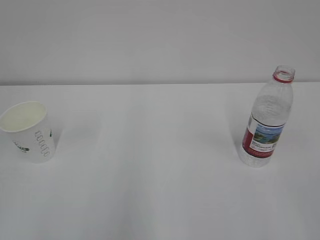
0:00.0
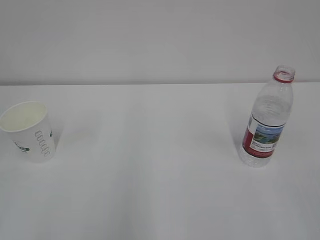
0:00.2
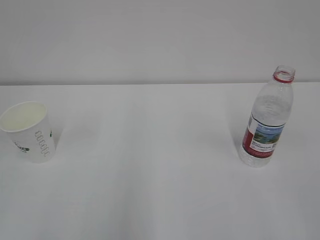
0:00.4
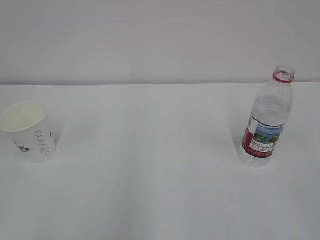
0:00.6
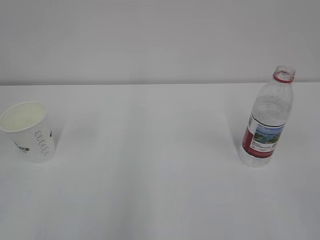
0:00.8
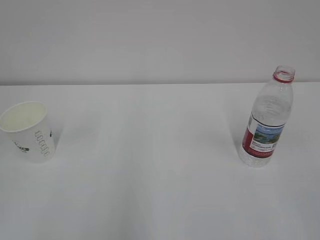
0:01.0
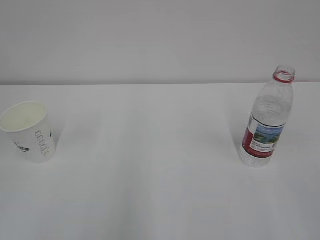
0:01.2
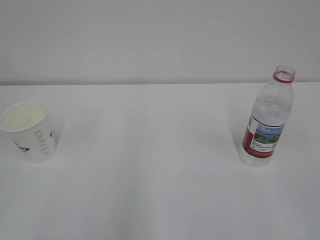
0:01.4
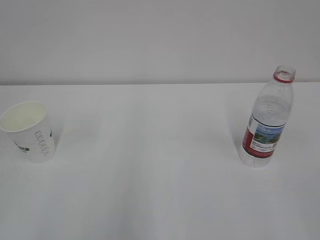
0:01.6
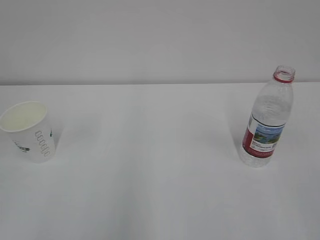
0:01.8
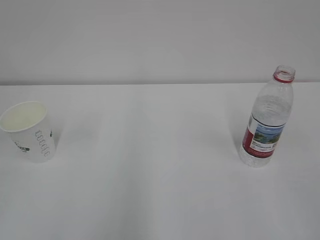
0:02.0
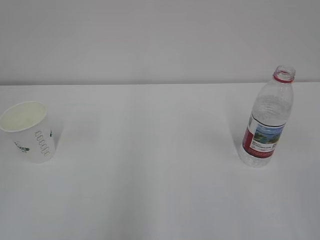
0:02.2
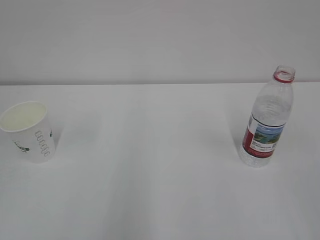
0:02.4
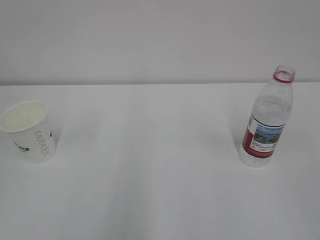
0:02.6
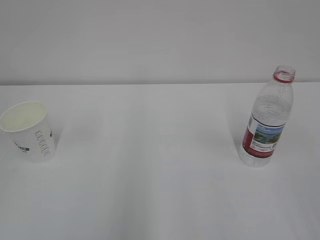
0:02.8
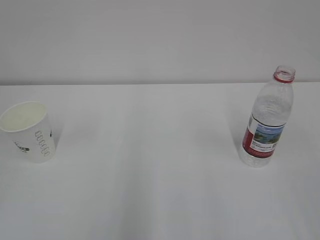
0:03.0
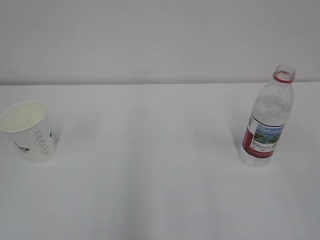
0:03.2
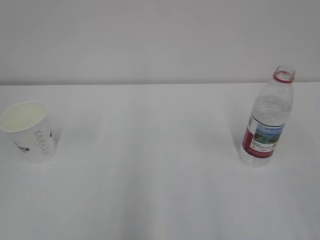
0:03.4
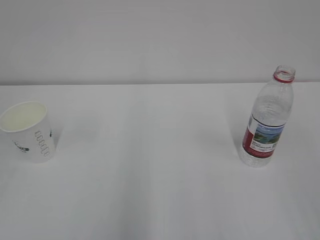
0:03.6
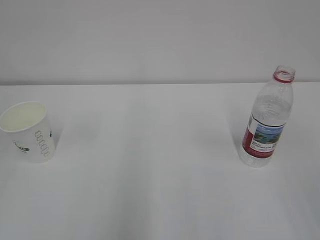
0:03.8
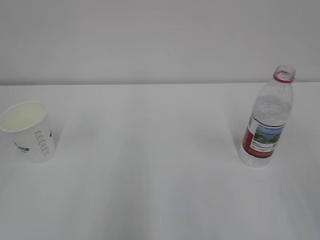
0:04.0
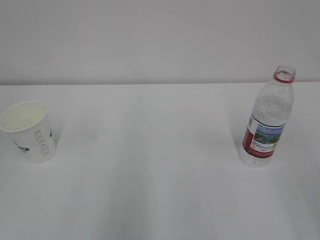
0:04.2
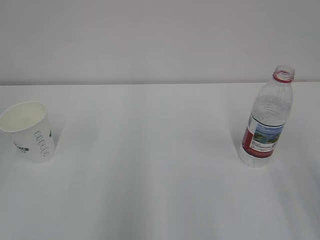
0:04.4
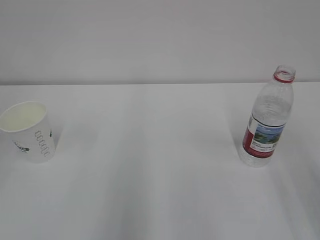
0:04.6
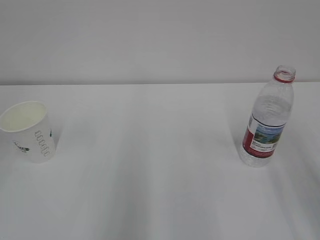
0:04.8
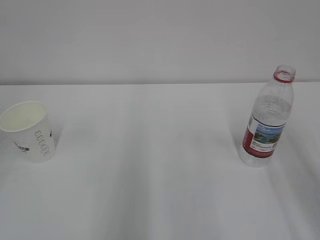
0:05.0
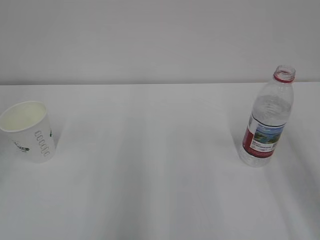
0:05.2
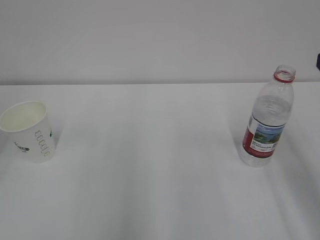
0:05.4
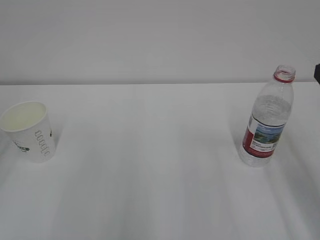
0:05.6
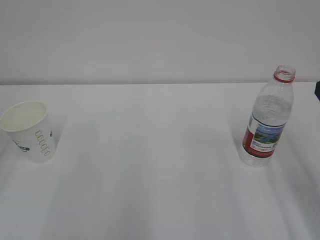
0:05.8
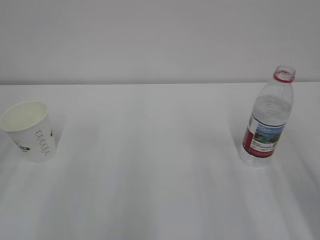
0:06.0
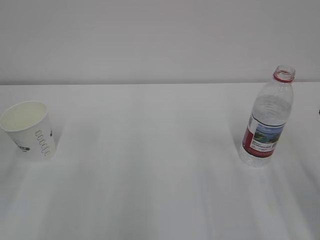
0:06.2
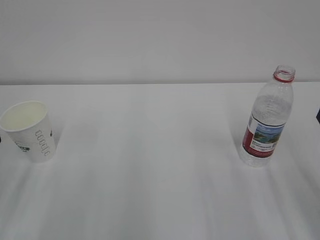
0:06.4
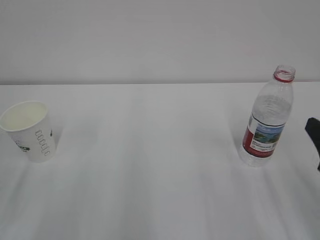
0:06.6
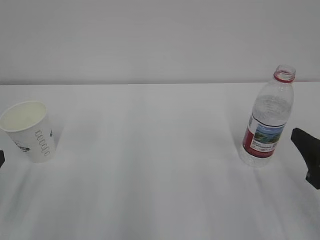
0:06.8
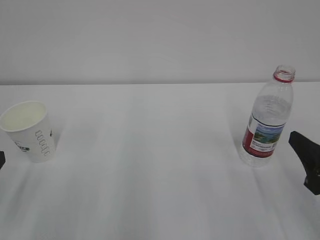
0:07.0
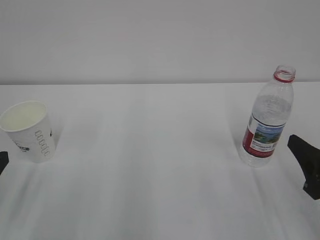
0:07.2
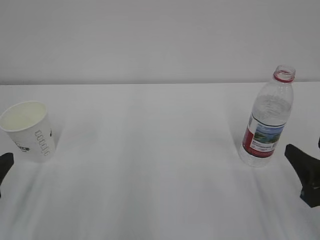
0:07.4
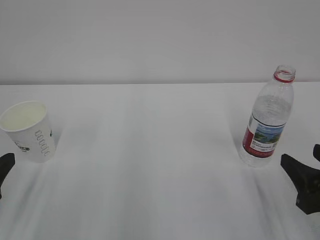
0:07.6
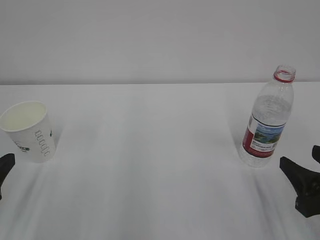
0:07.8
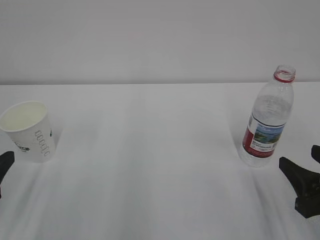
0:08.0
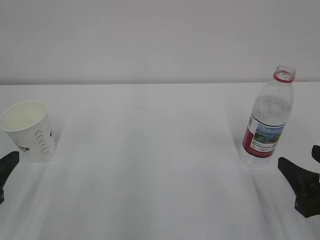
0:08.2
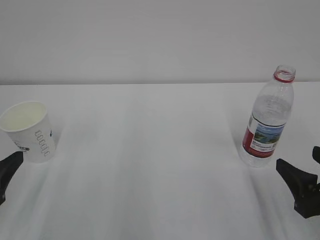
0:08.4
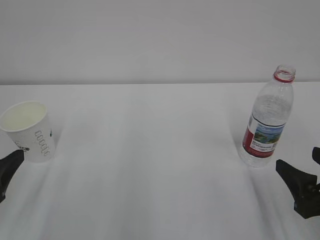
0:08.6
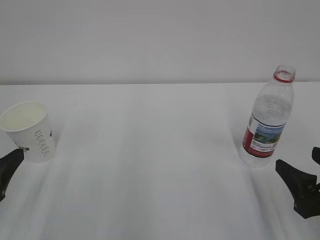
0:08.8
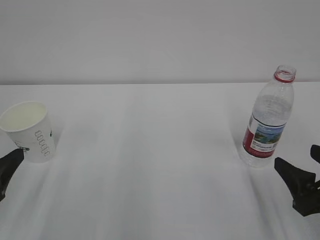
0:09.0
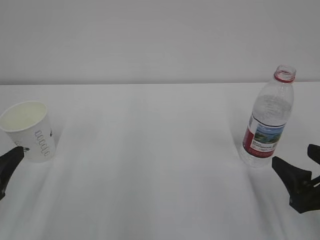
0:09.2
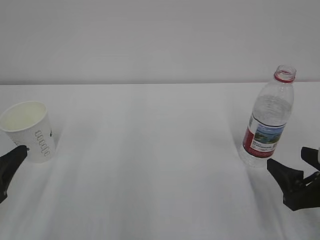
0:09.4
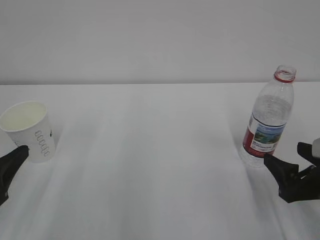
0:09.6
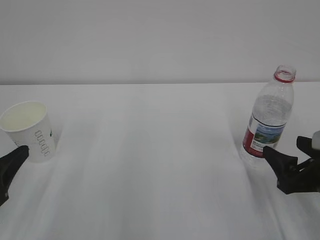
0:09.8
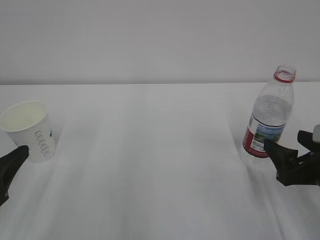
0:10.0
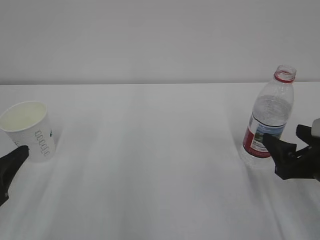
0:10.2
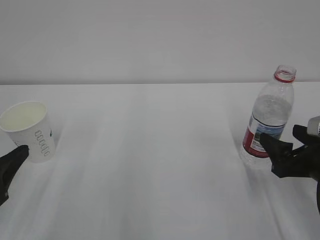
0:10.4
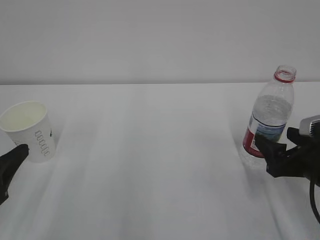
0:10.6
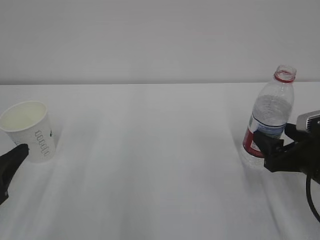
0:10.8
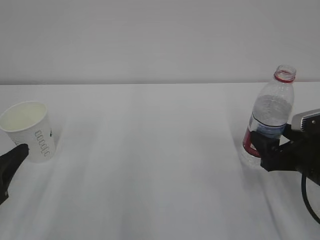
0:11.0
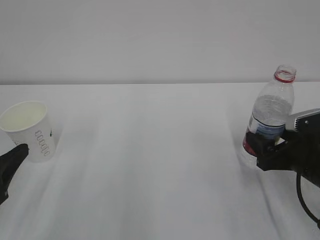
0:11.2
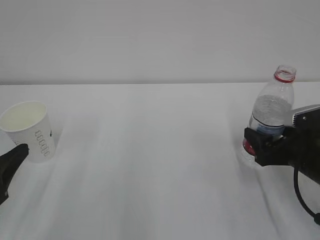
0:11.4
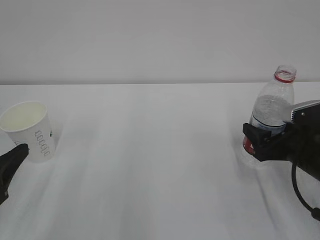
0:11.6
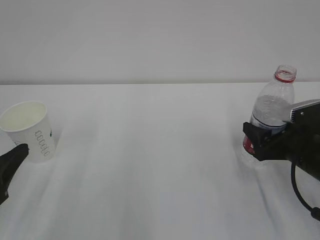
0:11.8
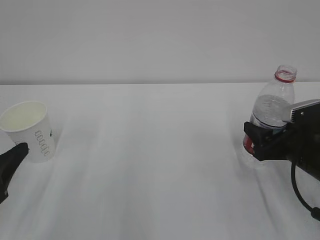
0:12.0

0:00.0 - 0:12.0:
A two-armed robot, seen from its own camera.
0:06.0 - 0:07.6: The grippers both shift downward by about 5 cm.
0:07.6 - 0:09.0: The right gripper opens up.
0:09.0 - 0:10.4: The right gripper moves forward, some 5 cm.
0:10.4 - 0:12.0: The right gripper changes place by roughly 5 cm, and closes up.

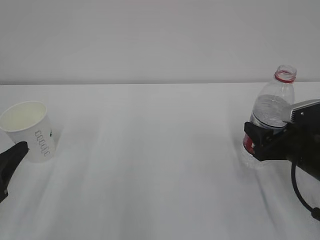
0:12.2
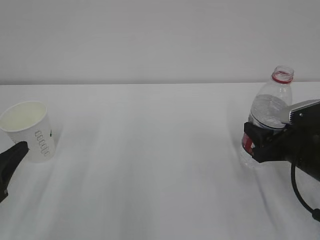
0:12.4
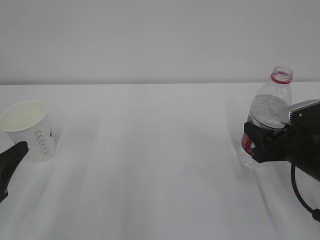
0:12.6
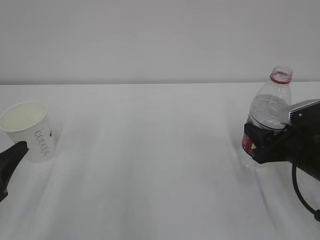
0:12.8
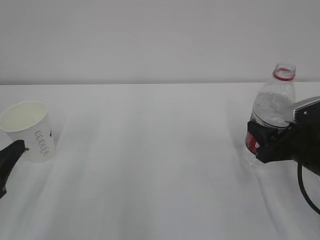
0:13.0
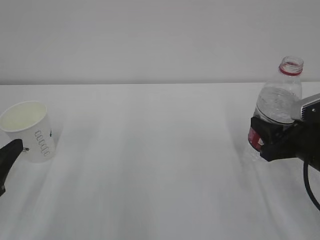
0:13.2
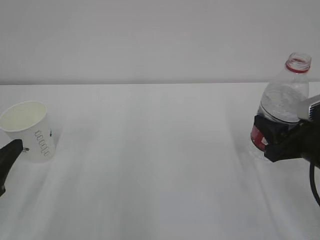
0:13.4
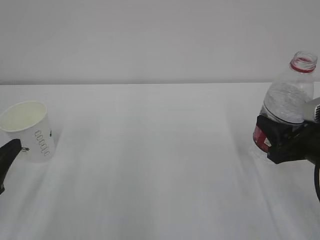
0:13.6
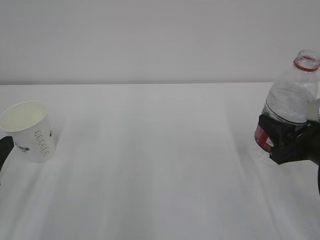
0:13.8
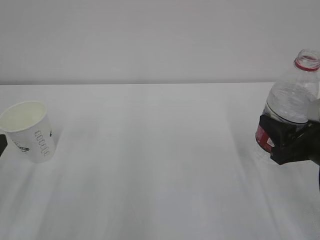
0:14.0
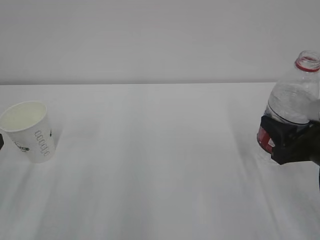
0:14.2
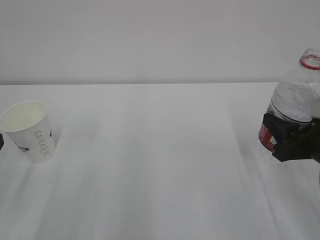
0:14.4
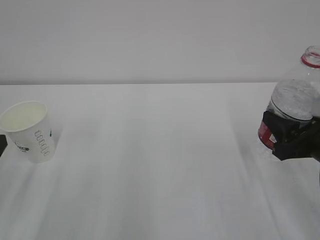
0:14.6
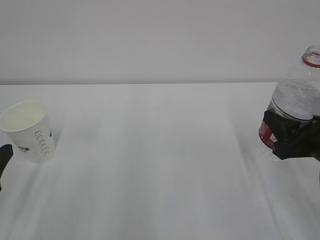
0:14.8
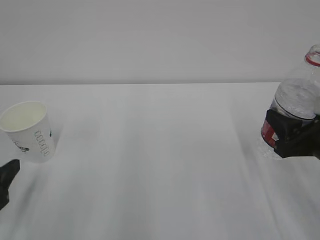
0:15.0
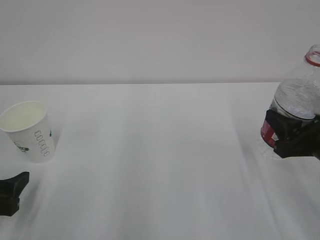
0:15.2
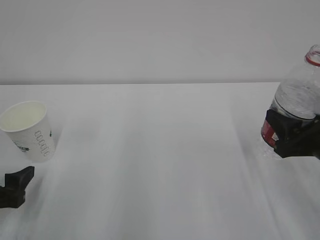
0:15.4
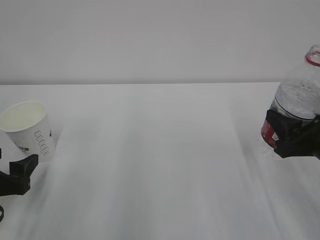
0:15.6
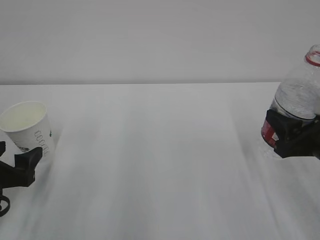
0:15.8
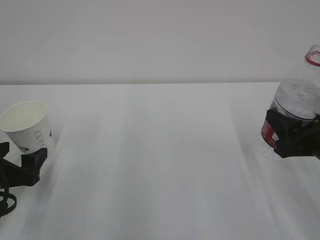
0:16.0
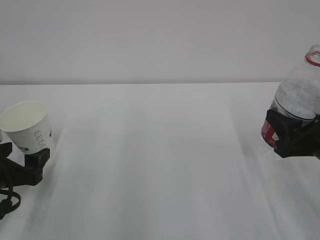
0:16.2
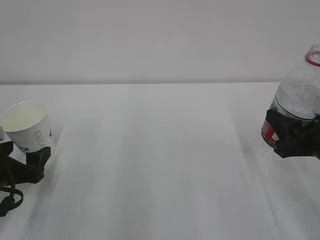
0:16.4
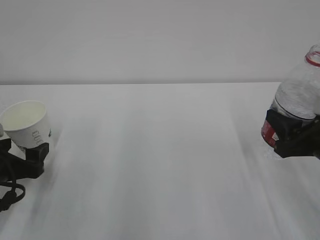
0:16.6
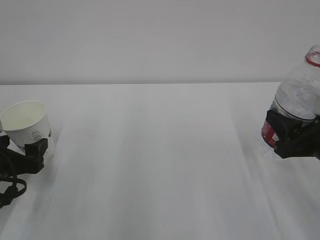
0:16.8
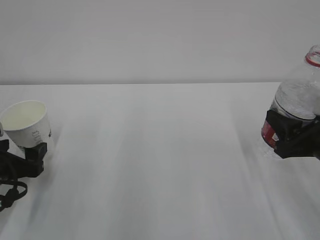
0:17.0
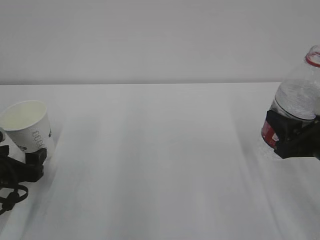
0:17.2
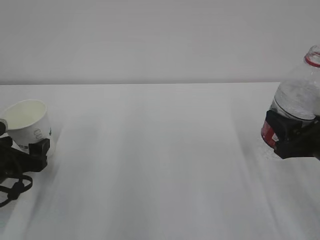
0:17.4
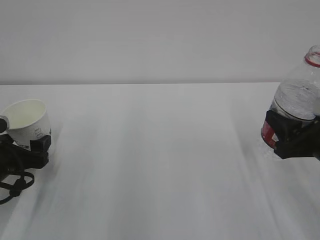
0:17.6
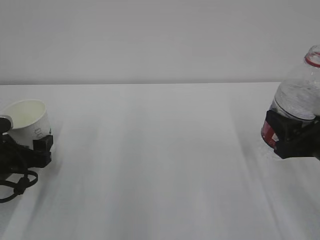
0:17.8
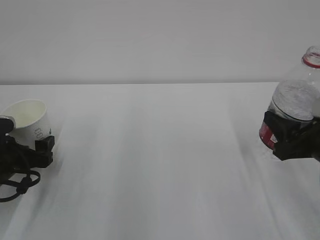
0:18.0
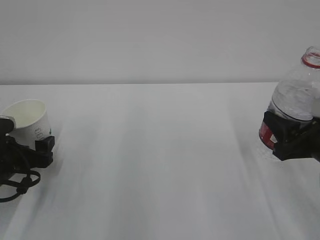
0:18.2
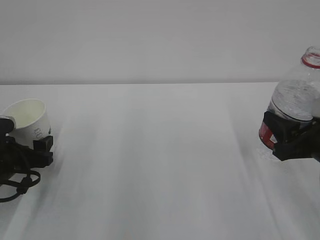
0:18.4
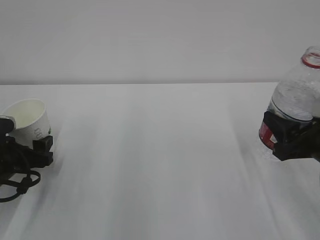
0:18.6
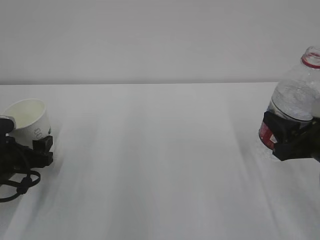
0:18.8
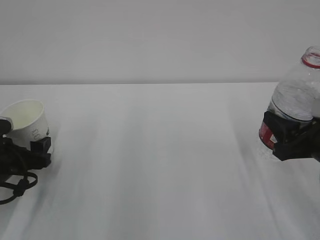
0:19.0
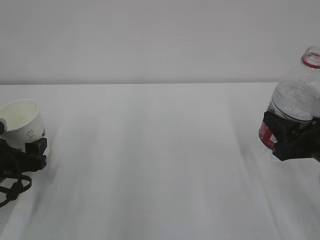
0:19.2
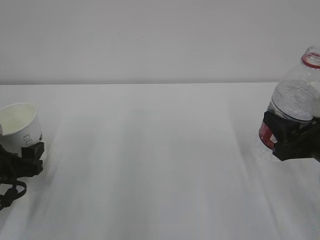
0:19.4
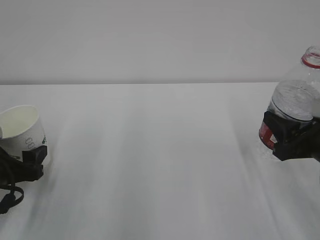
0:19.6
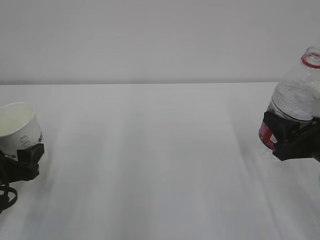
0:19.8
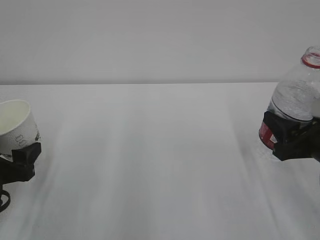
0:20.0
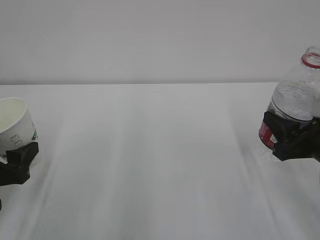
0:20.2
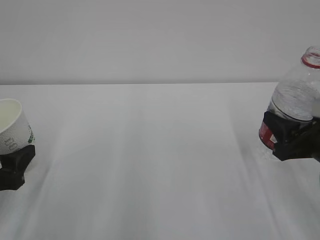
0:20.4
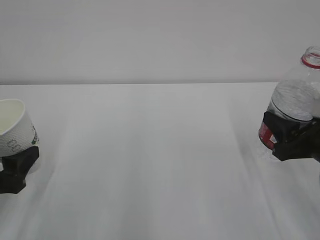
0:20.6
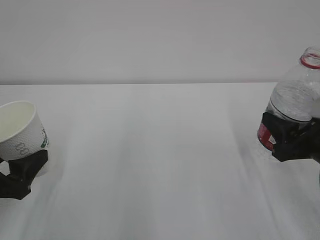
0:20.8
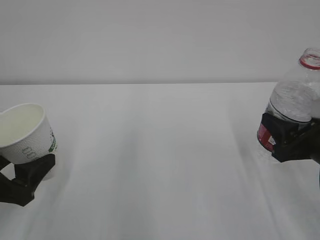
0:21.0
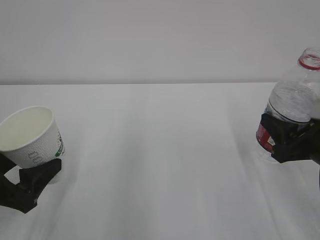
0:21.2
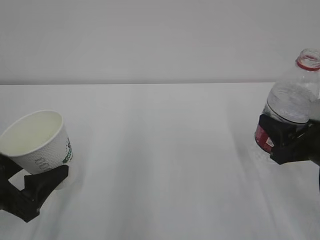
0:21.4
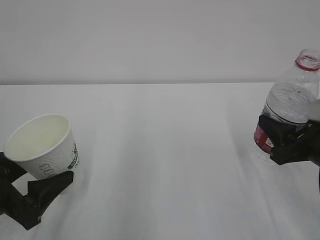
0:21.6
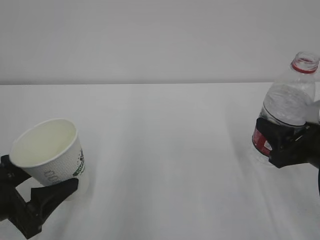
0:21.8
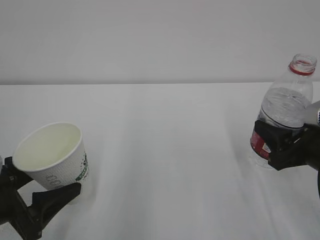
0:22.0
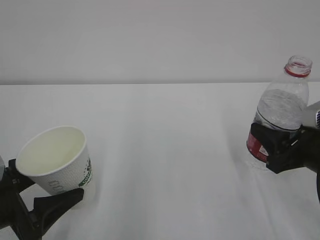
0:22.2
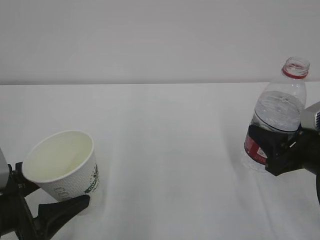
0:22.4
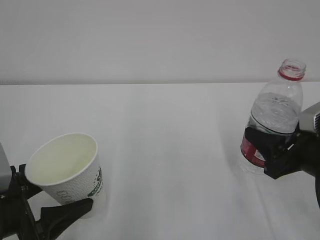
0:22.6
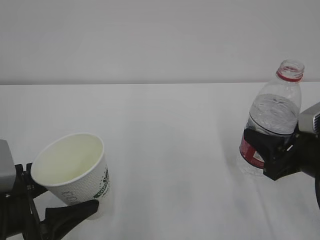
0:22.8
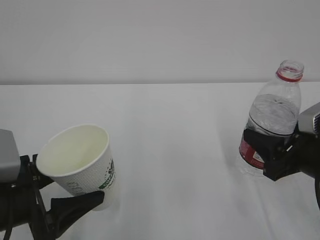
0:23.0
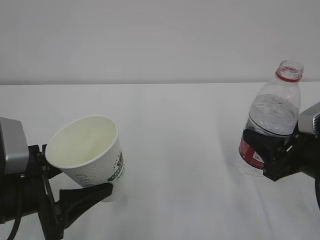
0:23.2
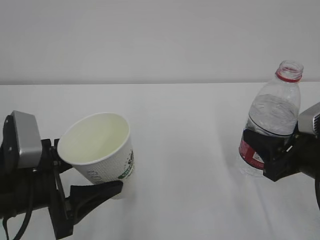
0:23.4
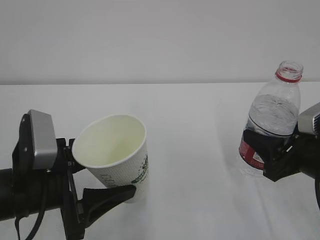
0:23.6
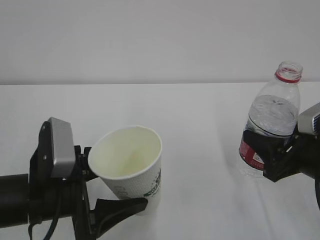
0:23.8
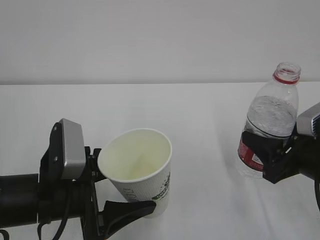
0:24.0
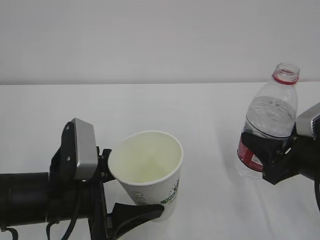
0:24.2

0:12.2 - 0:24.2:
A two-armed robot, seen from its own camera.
0:12.2 - 0:13.8: The right gripper moves about 5 cm, and closes.
0:13.8 - 0:15.2: The left gripper travels downward by about 5 cm.
0:15.2 - 0:16.6: The left gripper moves forward, some 5 cm.
0:16.6 - 0:18.2: The grippers make only small movements.
0:18.2 - 0:19.8: The left gripper shifts by roughly 5 cm, and closes up.
0:19.8 - 0:21.2: The left gripper moves approximately 5 cm.
0:22.6 - 0:24.2: The left gripper heads to the right, covering about 10 cm.
